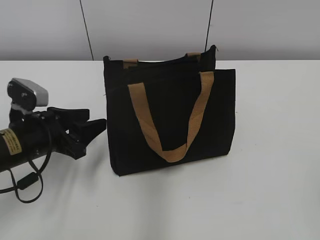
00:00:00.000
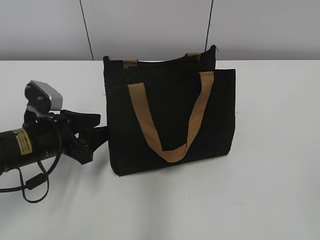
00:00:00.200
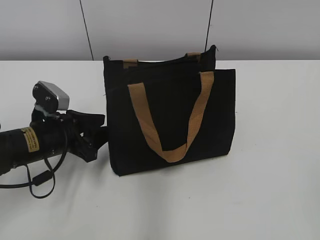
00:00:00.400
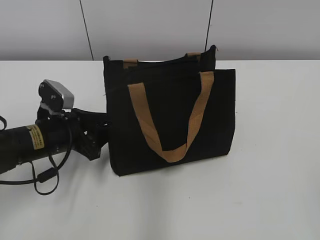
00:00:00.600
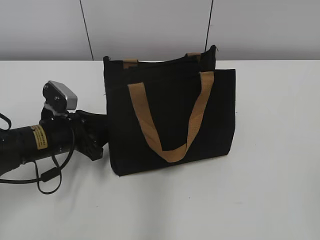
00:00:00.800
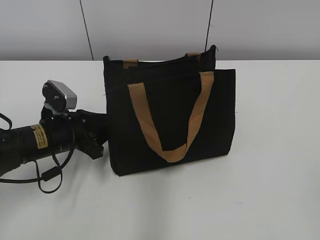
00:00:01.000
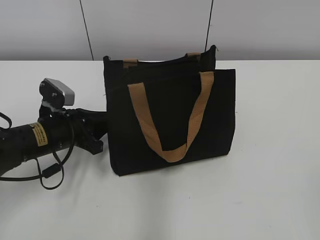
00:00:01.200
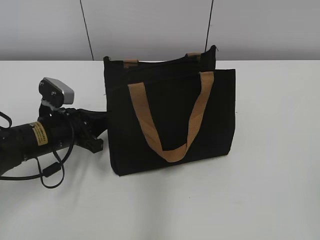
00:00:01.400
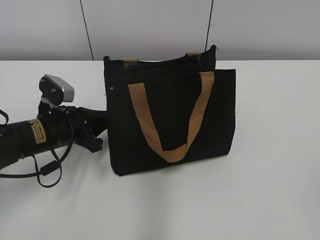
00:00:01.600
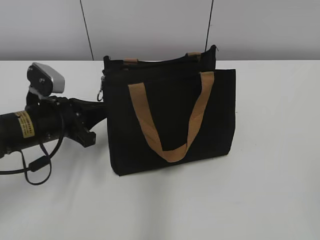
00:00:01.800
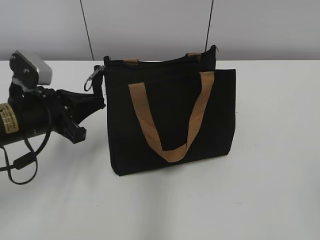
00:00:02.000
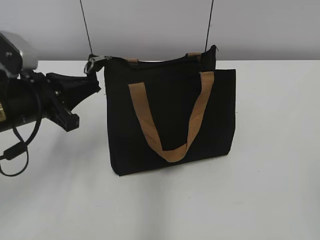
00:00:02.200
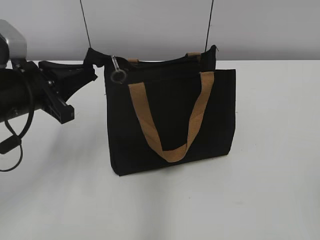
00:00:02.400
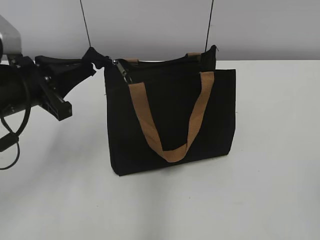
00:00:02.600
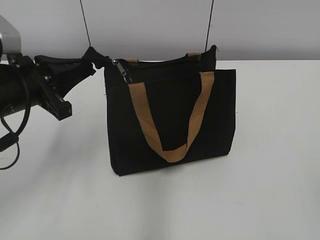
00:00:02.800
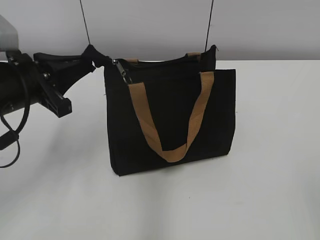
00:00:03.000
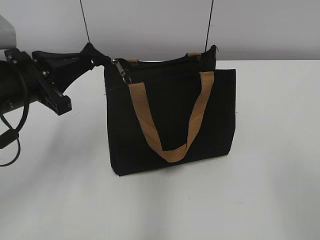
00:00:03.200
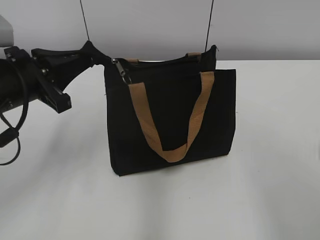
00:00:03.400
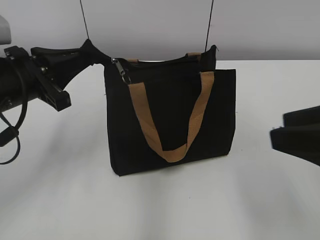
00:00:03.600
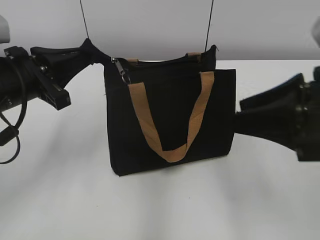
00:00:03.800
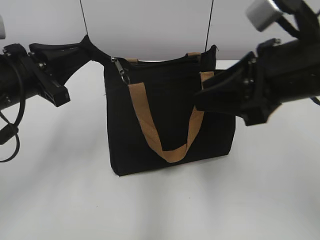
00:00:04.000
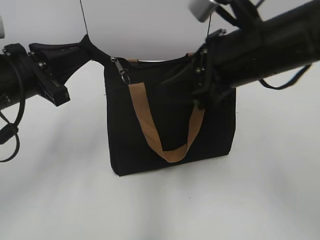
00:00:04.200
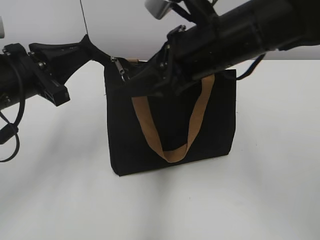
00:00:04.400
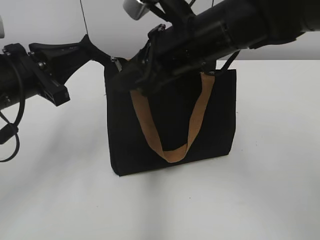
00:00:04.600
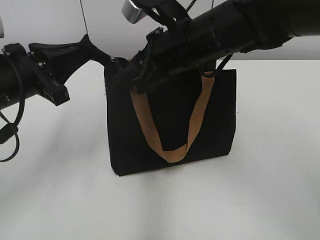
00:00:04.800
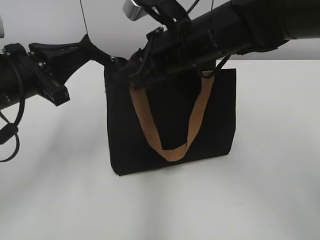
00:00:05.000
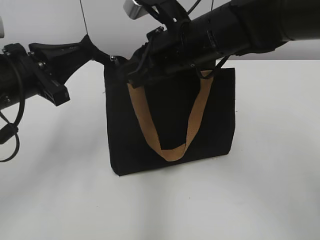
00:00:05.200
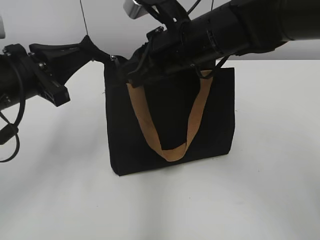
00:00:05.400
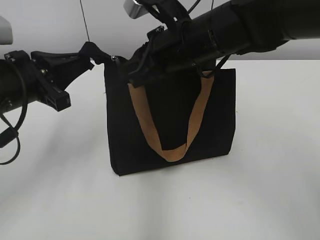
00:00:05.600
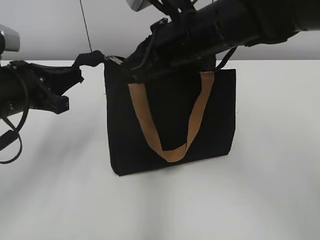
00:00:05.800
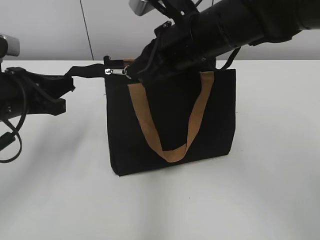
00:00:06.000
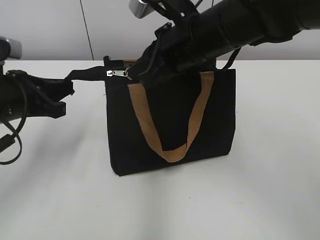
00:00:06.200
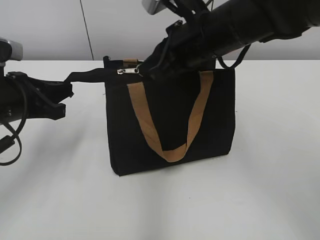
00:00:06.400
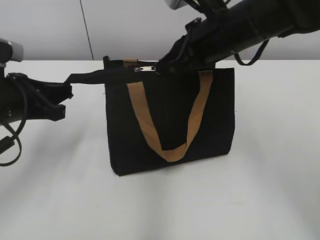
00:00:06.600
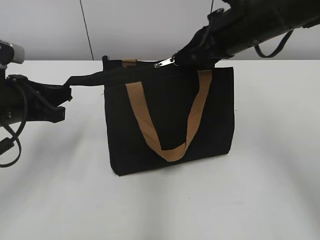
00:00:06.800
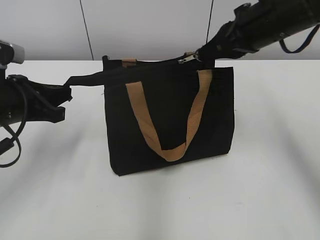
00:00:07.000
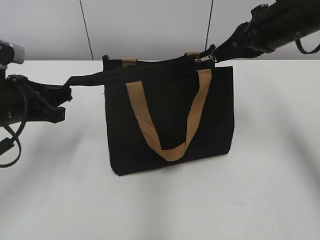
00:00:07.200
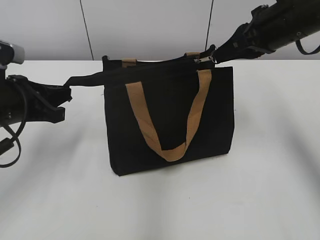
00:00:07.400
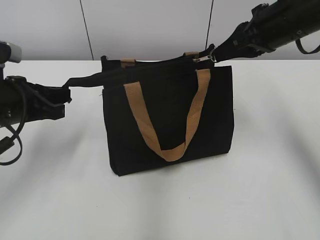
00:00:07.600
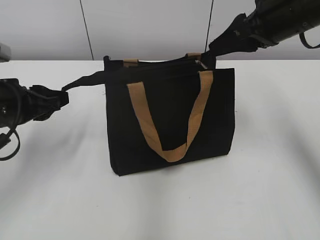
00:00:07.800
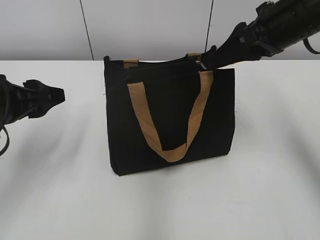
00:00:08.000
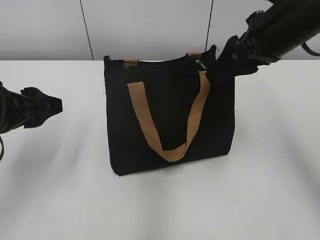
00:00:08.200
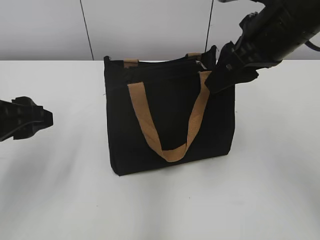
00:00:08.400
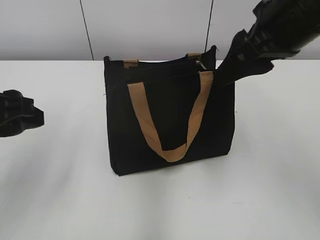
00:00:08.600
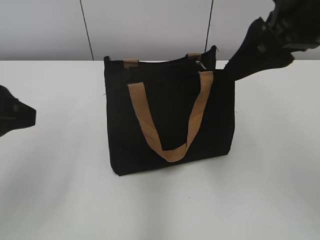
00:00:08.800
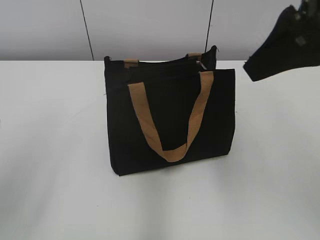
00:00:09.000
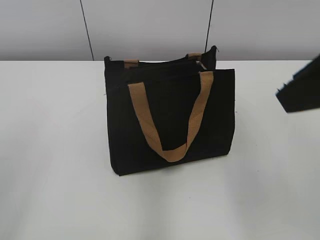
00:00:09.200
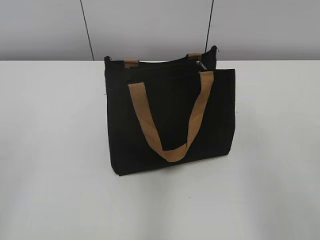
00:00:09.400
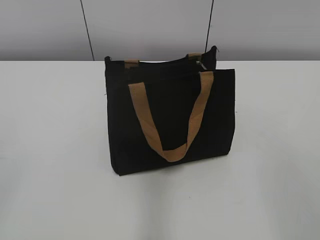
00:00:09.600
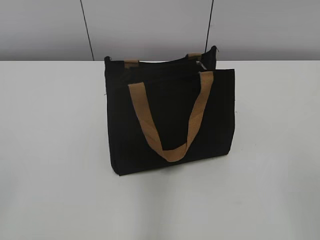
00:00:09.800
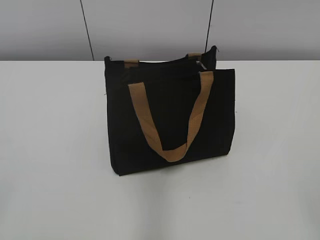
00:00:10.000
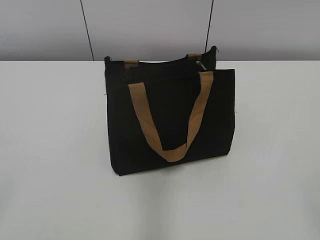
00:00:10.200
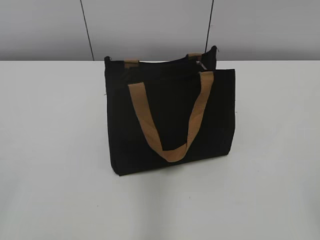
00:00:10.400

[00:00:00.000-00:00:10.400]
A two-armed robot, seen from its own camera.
Step, 00:00:00.000 to 00:00:07.600: Zip up the bag with your right hand.
00:00:00.000 to 00:00:01.400: The left gripper ends up roughly 5 cm from where it was, and closes up.
00:00:01.400 to 00:00:03.000: The left gripper moves upward, approximately 10 cm.
00:00:03.000 to 00:00:04.400: The right gripper is displaced forward and to the left by some 35 cm.
00:00:04.400 to 00:00:06.000: The right gripper moves about 5 cm, and closes.
00:00:06.000 to 00:00:07.400: The right gripper is displaced to the right by about 15 cm.
00:00:07.400 to 00:00:09.000: Both grippers travel together backward and upward, roughly 15 cm. The right gripper opens up. Meanwhile the left gripper opens up.
00:00:09.000 to 00:00:10.400: The right gripper moves backward and to the right, approximately 30 cm.
